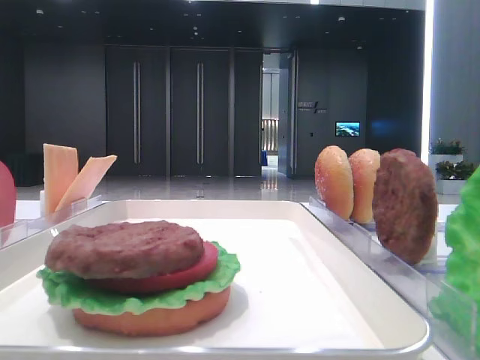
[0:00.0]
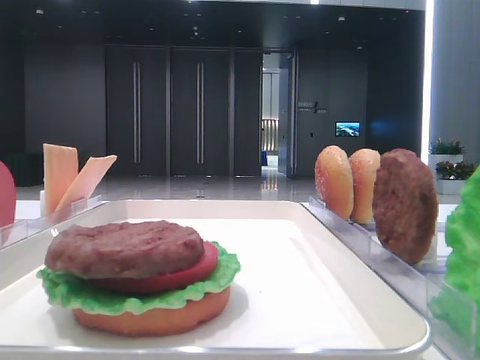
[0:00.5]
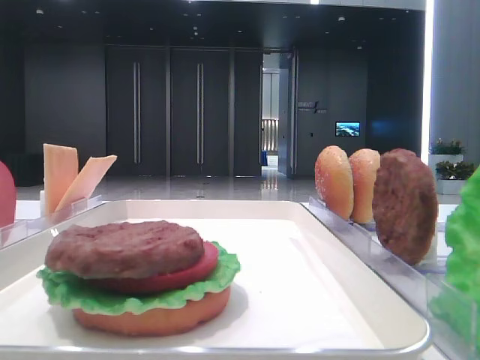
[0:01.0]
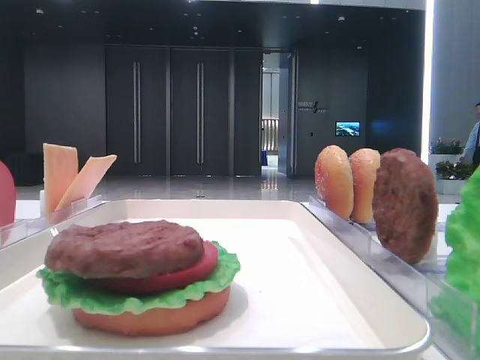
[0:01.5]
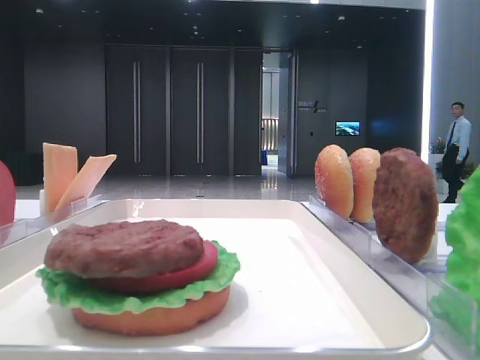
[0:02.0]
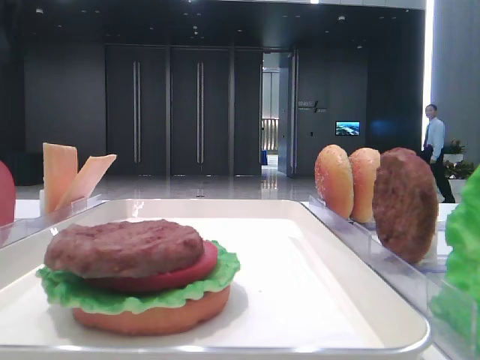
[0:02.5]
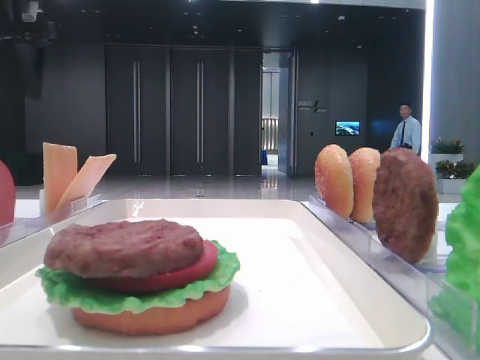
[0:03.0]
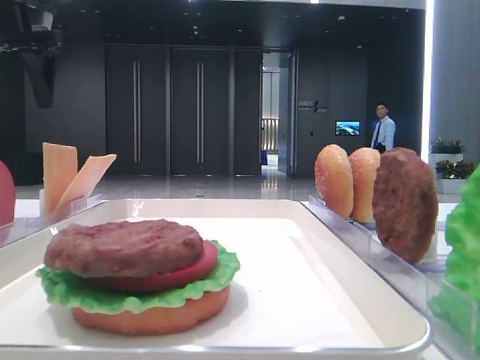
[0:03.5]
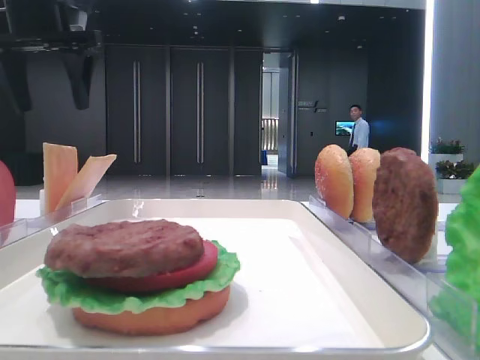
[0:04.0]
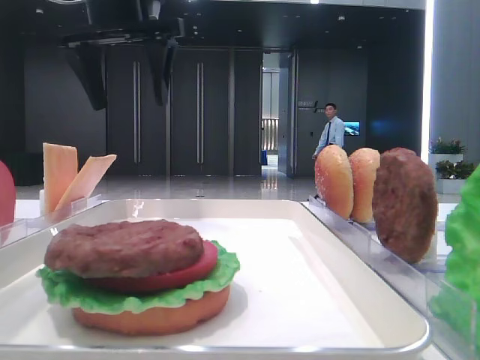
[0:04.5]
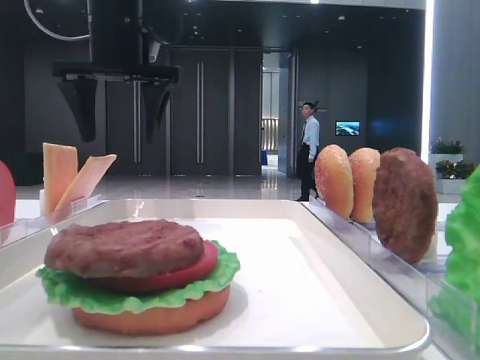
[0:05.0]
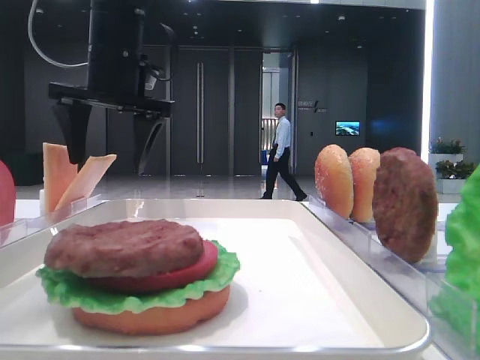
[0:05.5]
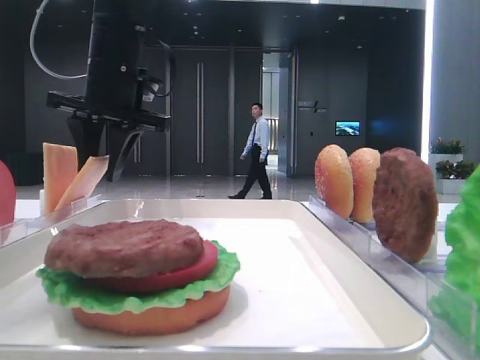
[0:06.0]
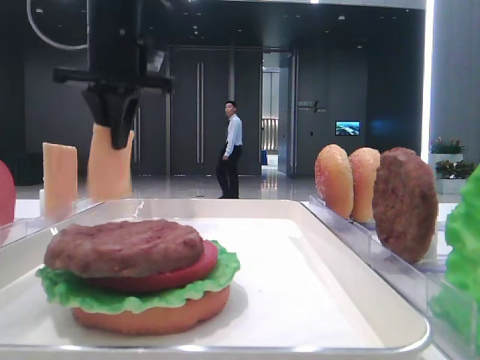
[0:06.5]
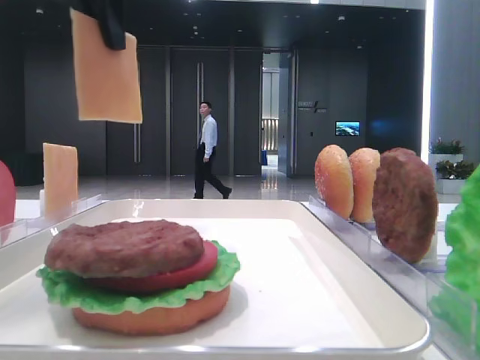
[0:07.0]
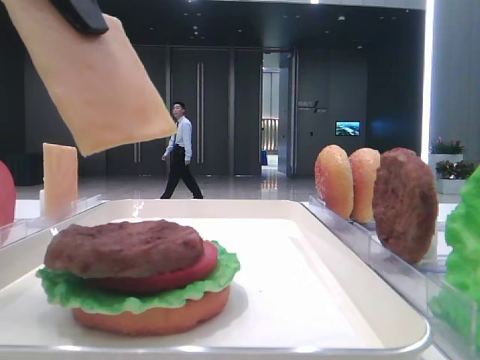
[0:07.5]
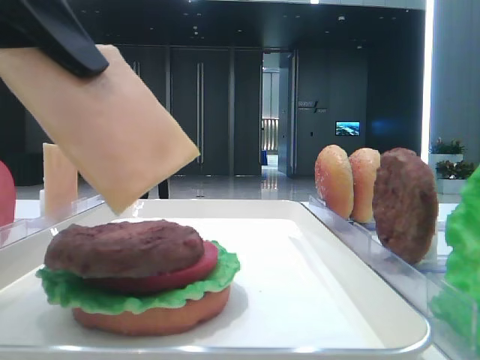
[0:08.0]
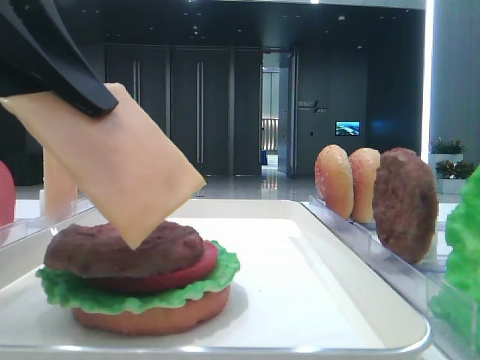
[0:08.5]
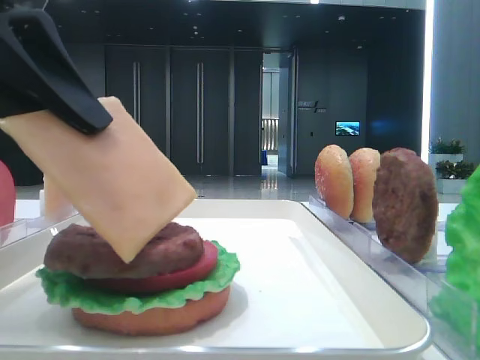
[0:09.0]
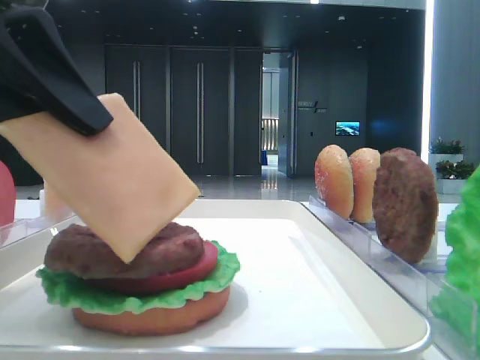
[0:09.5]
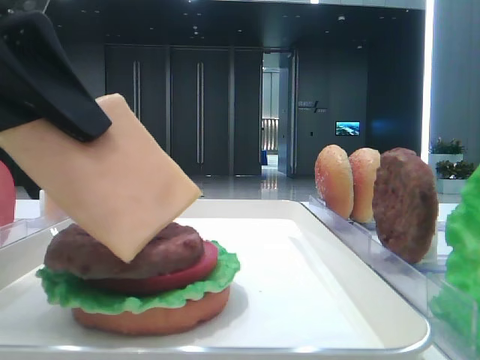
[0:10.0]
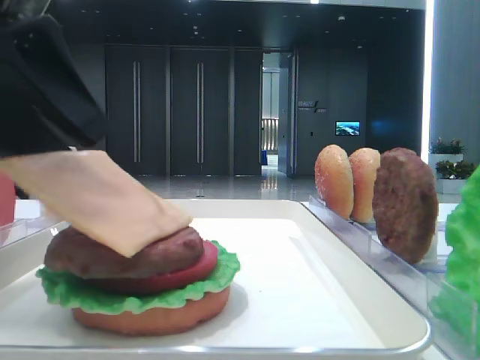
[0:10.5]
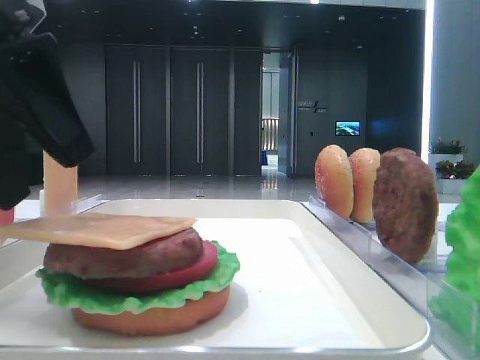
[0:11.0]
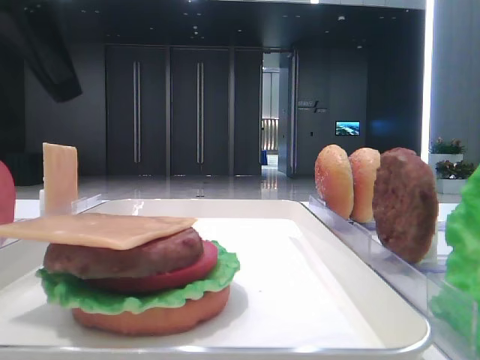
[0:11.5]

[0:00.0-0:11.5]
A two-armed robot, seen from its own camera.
Step, 0:00.0 to 0:06.0: Pick up the cheese slice with the left hand.
Step, 0:06.5 to 0:11.0: Place the cheese slice on the patty with the left hand.
0:02.0 to 0:04.0: The left gripper travels forward, downward and to the right by some 15 cm.
0:04.0 to 0:06.0: The left gripper heads to the right and downward, covering about 15 cm, and closes up.
0:06.0 to 0:07.5: The left gripper heads backward, covering about 25 cm, and closes its fingers.
0:07.5 to 0:09.5: The left gripper goes some 10 cm downward.
0:09.5 to 0:11.5: The left gripper heads forward, covering about 5 cm, and opens.

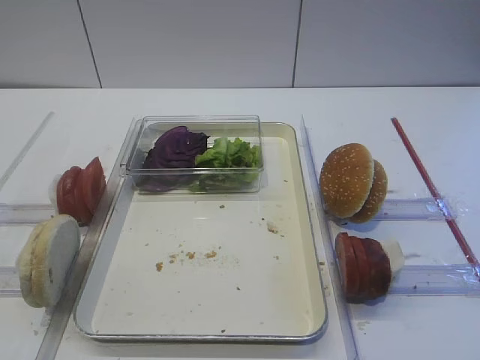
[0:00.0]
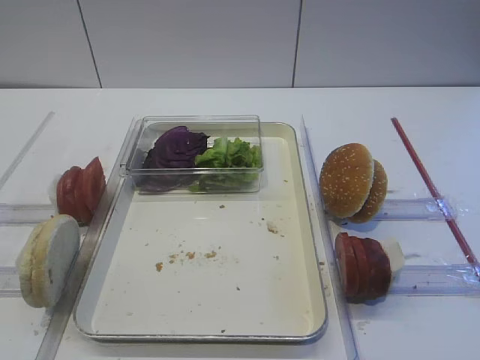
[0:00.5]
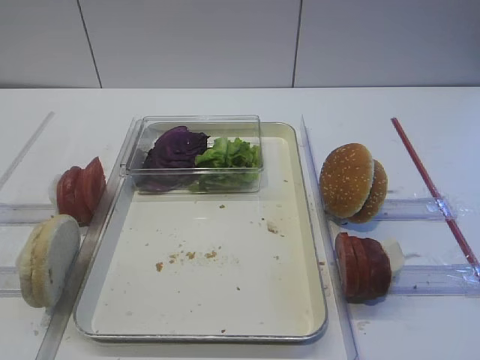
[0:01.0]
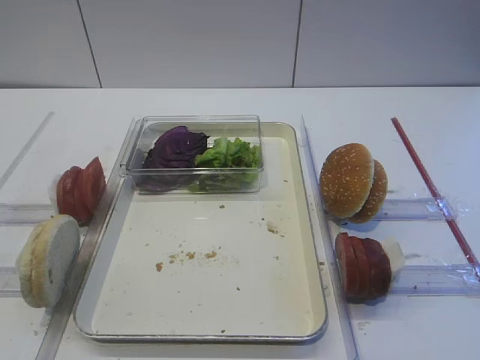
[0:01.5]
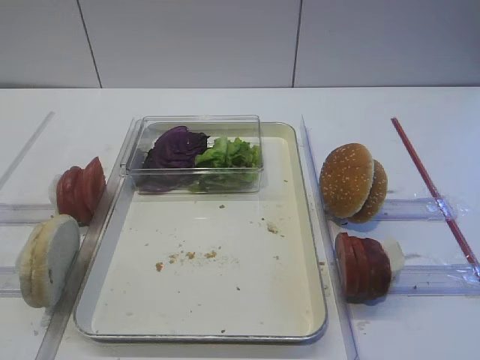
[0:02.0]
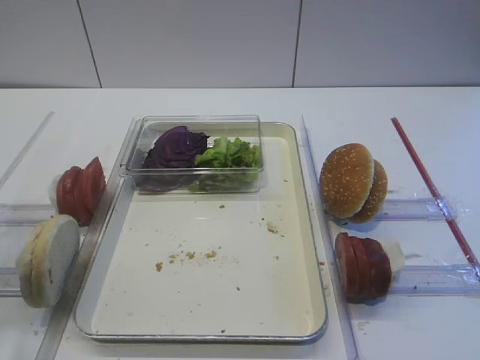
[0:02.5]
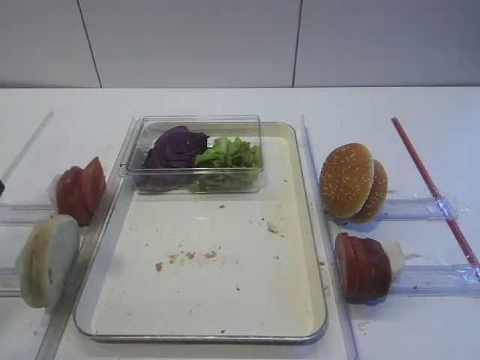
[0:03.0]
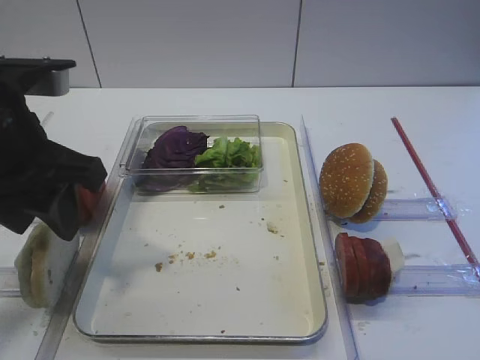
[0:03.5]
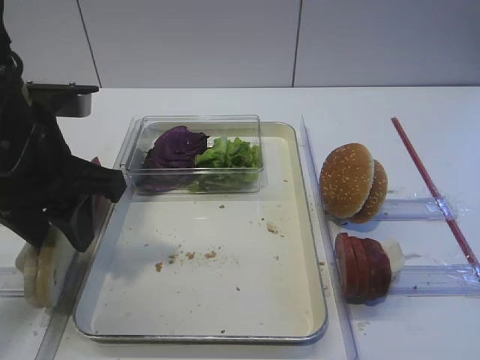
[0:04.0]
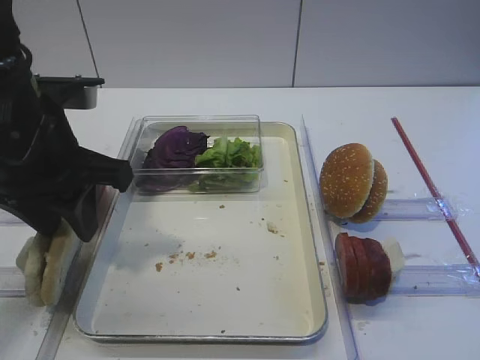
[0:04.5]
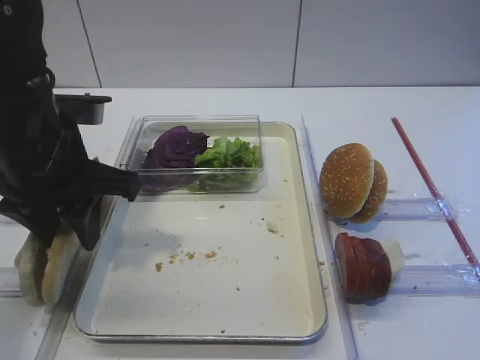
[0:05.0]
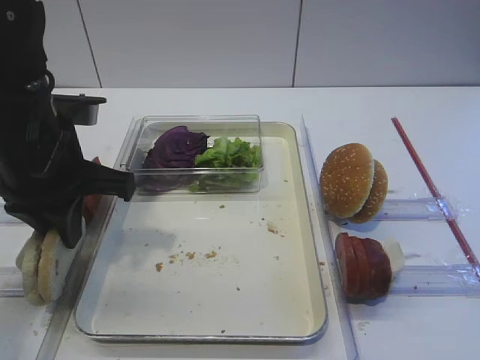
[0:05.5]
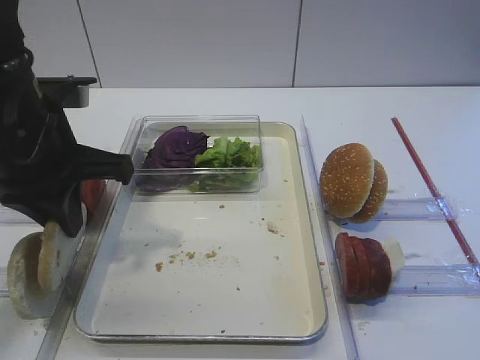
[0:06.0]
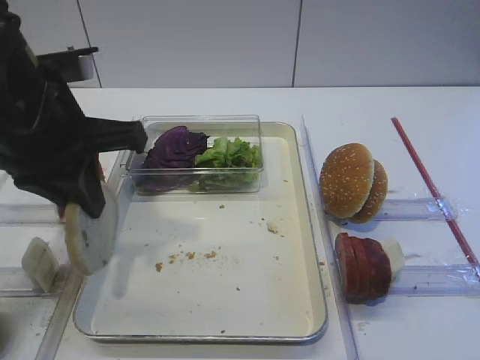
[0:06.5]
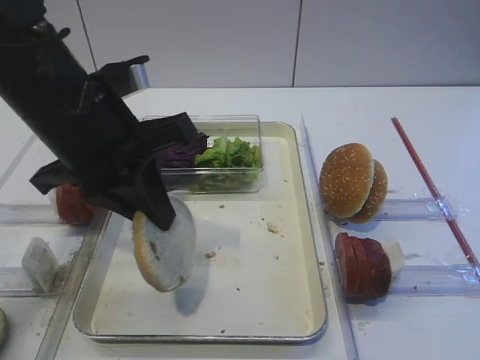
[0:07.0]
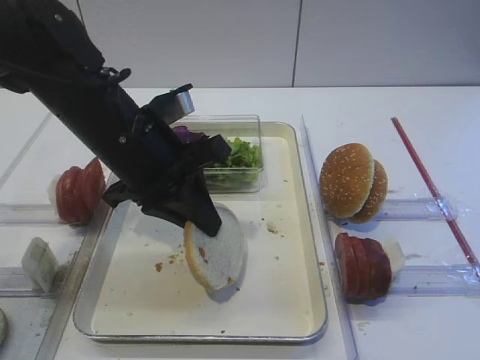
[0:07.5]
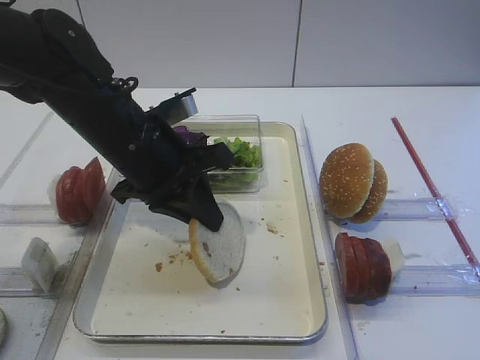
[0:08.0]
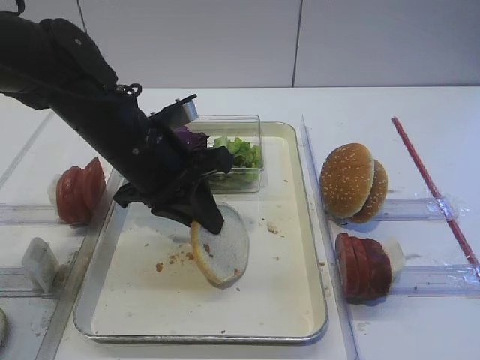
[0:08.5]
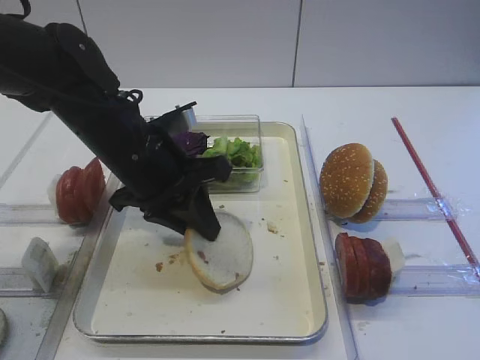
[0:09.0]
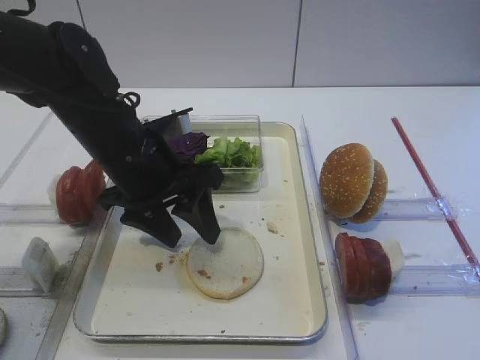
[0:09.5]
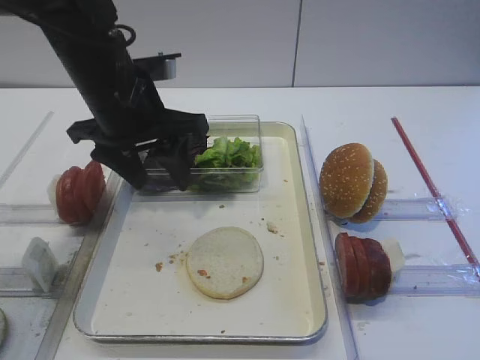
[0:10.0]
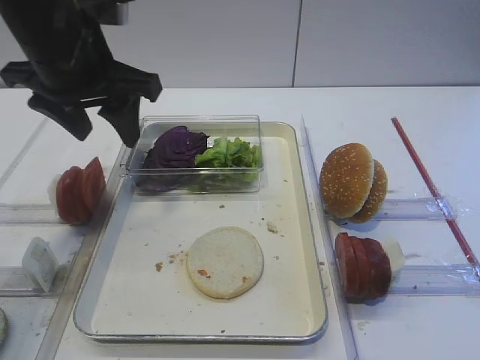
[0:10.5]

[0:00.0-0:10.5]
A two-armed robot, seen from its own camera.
Step, 0:00.0 to 0:06.0: Pick up the bread slice with the left gripper.
Step, 0:07.0 to 0:09.5: Place the bread slice on the tray with the left gripper.
0:02.0 to 0:04.0: The left gripper shifts some 25 cm forward and to the right.
0:04.0 to 0:06.5: The left gripper closes its fingers.
0:06.5 to 0:08.5: The left gripper is displaced downward, to the right and forward by some 10 cm.
0:08.5 to 0:10.5: The left gripper moves upward and to the left, some 10 cm, and opens its fingers.

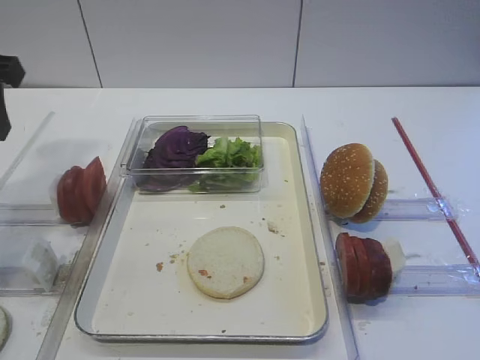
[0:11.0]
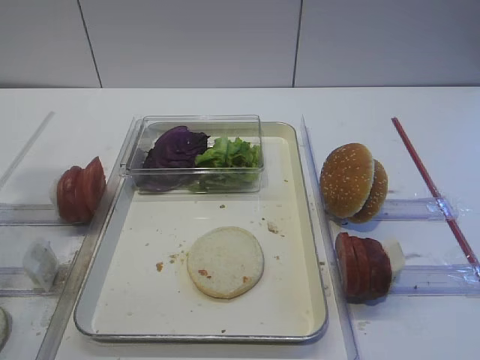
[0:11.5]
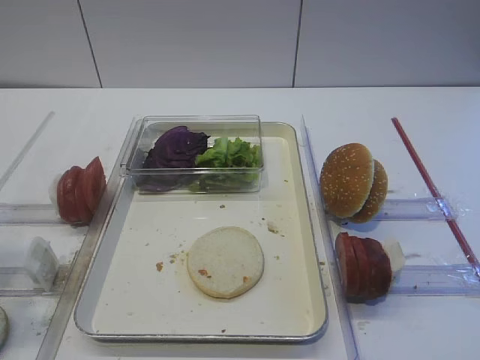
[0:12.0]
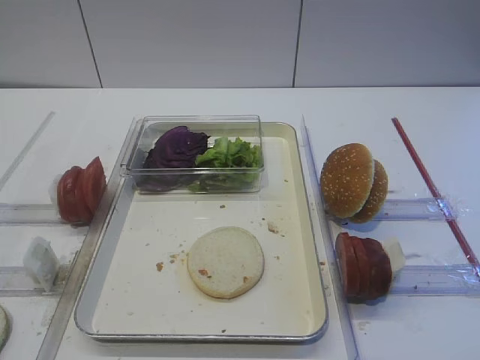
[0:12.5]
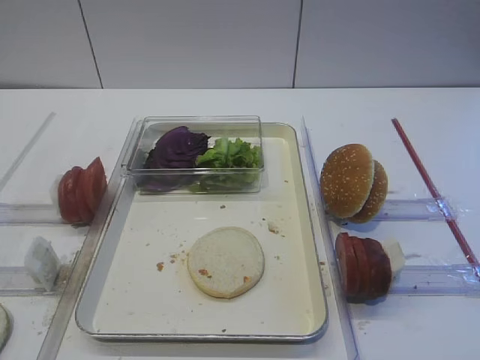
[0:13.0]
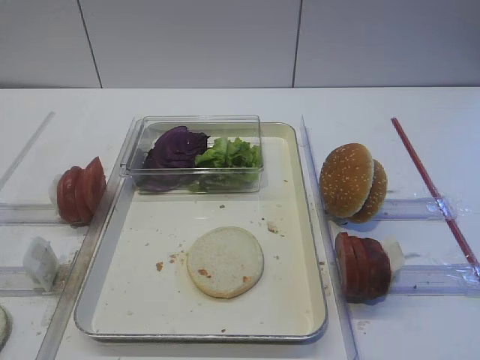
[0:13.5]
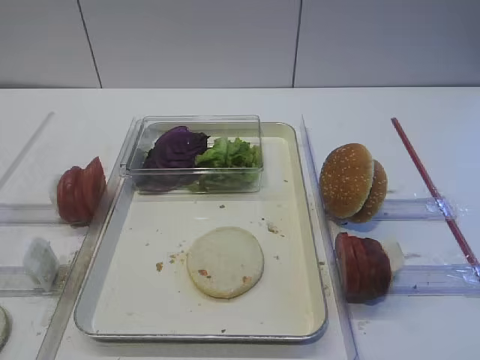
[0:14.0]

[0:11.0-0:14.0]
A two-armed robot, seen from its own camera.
0:11.0 to 0:12.5: The left gripper travels backward by roughly 25 cm.
